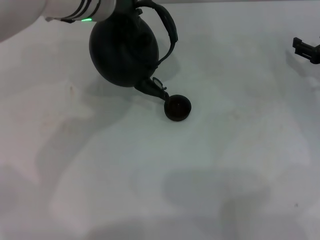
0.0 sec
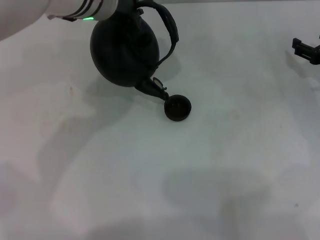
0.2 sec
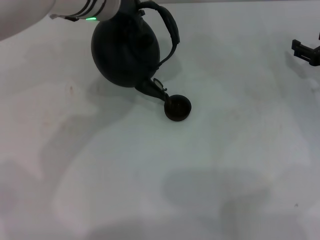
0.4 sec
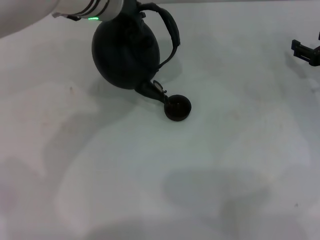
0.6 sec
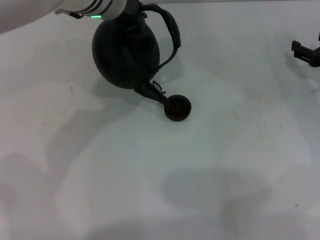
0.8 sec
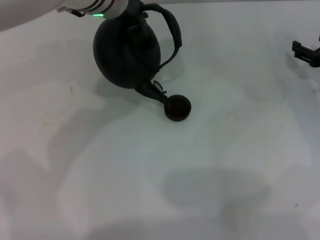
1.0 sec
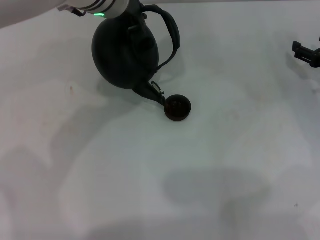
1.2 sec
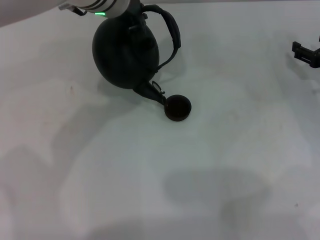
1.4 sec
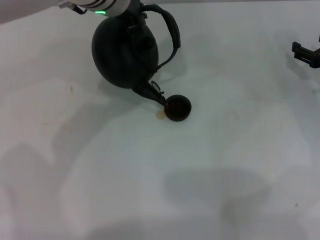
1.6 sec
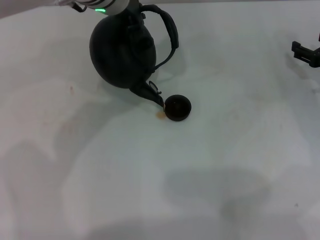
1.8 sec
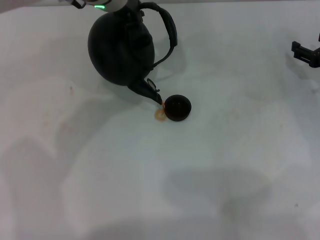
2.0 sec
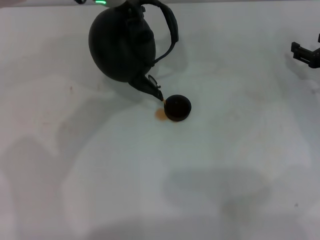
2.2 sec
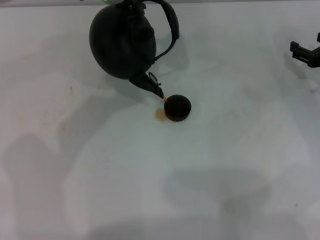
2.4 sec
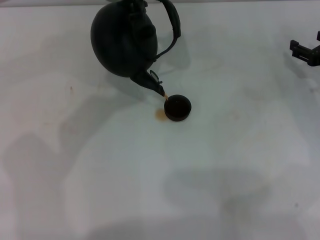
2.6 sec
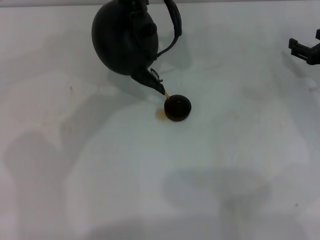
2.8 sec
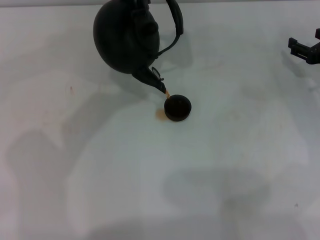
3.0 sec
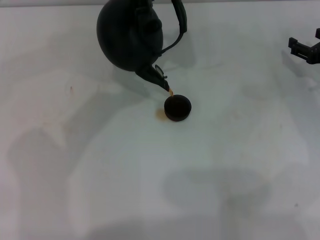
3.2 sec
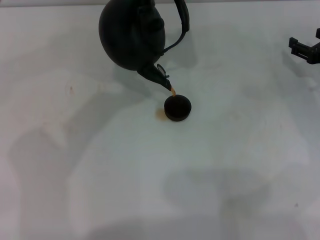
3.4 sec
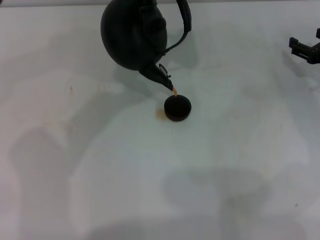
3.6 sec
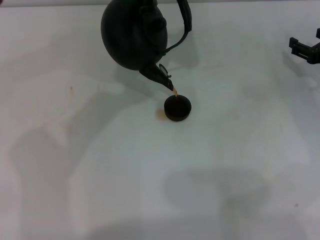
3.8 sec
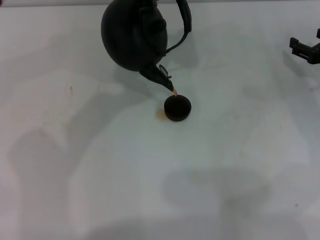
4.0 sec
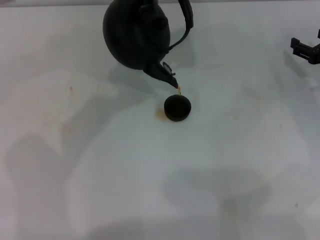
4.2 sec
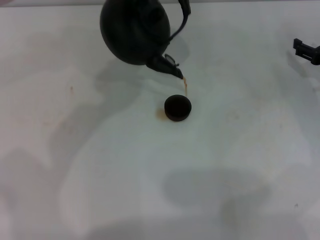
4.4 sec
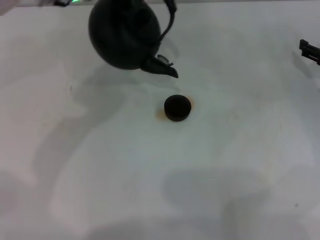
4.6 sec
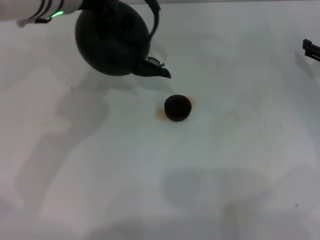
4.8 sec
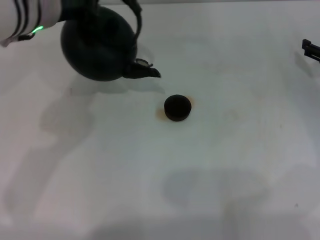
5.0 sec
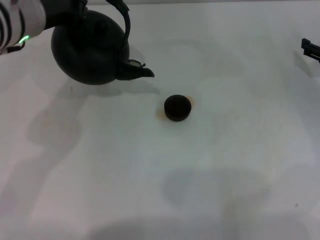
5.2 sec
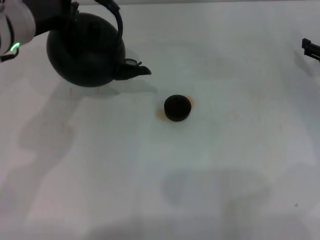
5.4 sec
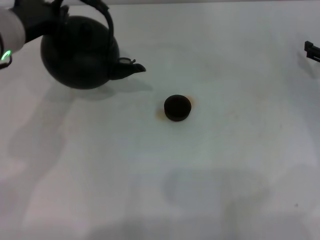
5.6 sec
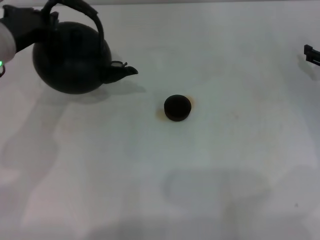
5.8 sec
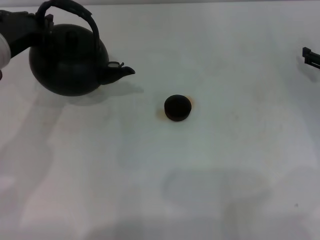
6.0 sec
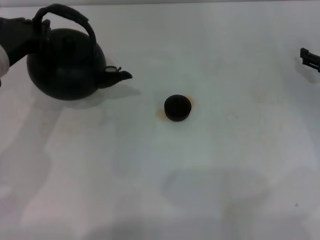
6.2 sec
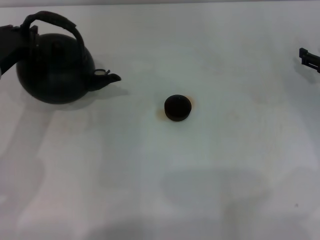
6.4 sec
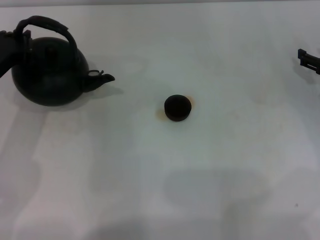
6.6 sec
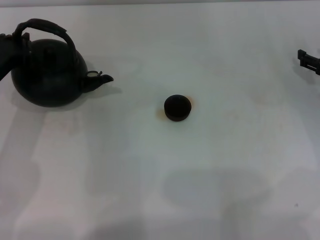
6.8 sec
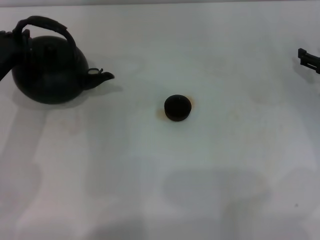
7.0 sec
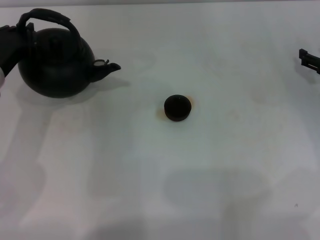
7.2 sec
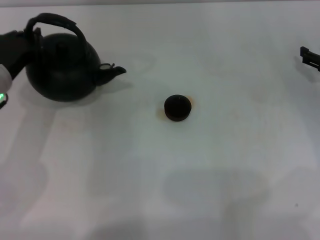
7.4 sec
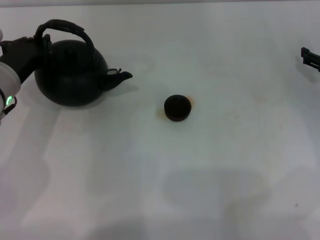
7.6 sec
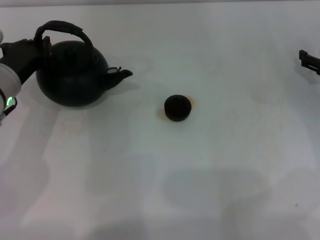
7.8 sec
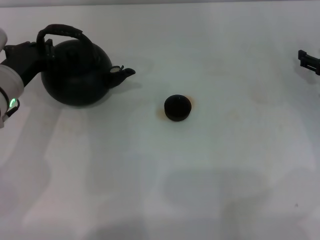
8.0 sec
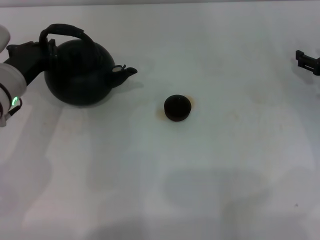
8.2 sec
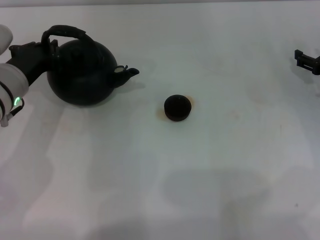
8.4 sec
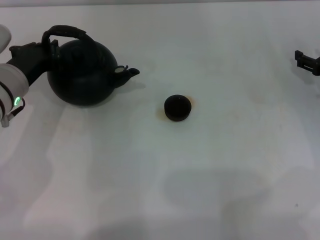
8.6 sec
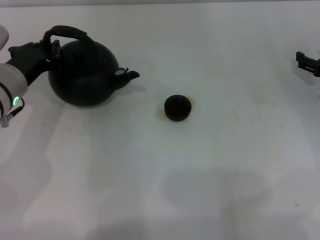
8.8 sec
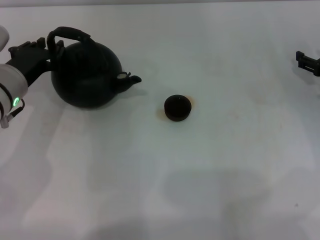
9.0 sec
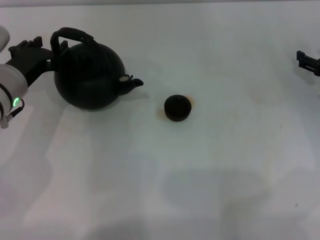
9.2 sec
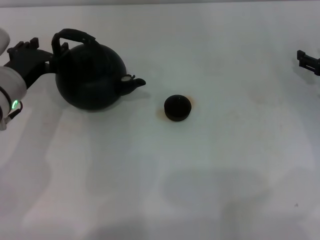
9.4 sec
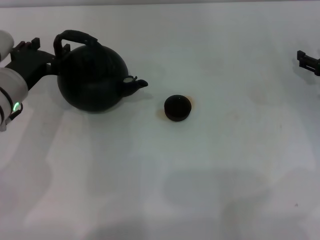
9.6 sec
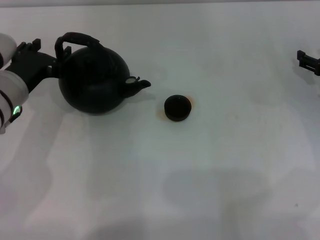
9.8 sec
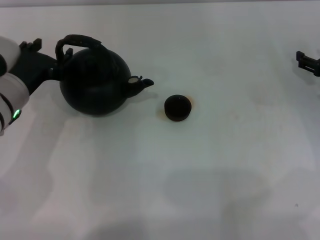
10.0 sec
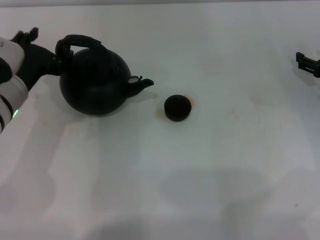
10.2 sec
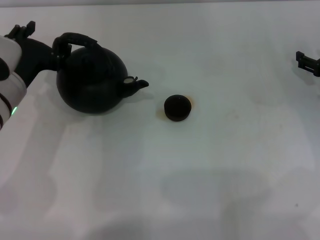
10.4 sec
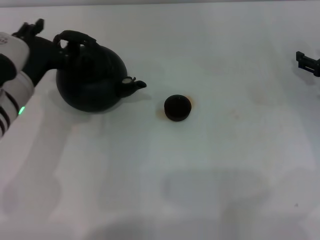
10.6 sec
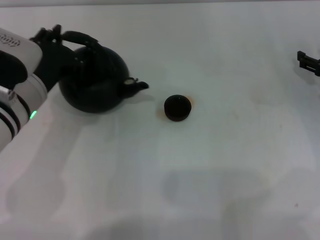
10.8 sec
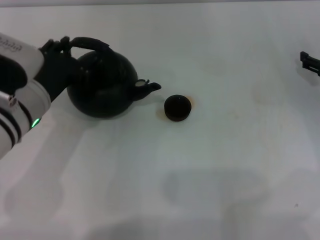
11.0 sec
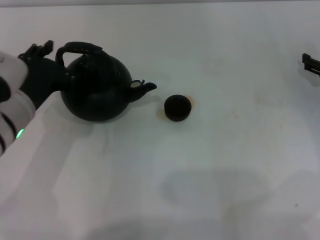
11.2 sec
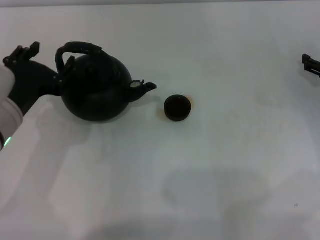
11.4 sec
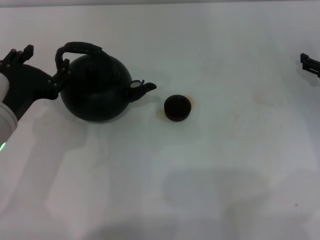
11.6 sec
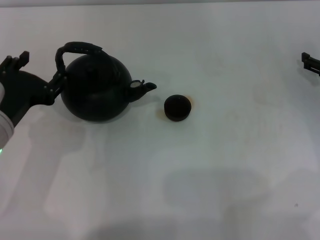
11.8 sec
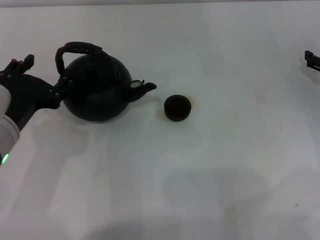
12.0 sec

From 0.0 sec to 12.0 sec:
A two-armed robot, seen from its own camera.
Task of the whole recording: Grasp the handle of the teapot with one hand and pour tea into the teacup.
Step, from 0.0 sec to 4.8 sec: Pour tea into the teacup with the left gripper.
Step, from 5.2 sec to 11.8 sec: Put down the teapot with the left gripper.
From 0.0 sec to 4.4 sec: The grippers stay close to where they were, moving slightly.
From 4.4 sec to 6.0 sec: The left gripper moves to the left, backward and downward, some 20 cm.
From 6.0 sec to 7.6 sec: The left gripper is displaced downward by some 5 cm.
From 7.6 sec to 9.0 sec: The two grippers keep their place.
From 9.0 sec to 10.4 sec: The left gripper opens its fingers.
From 10.4 sec to 12.0 sec: The left gripper shifts about 5 cm backward.

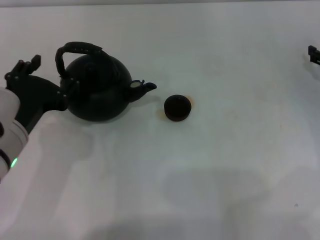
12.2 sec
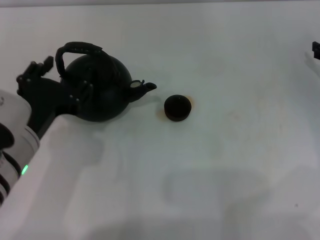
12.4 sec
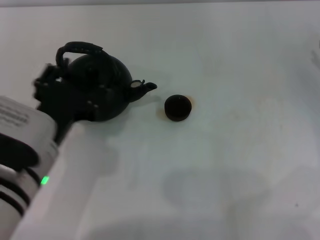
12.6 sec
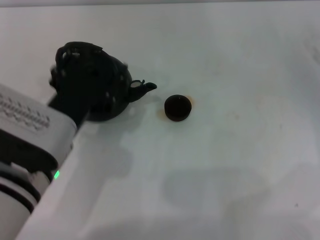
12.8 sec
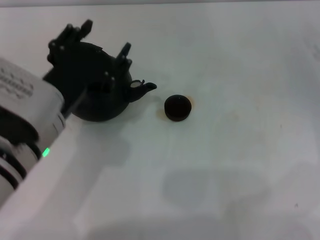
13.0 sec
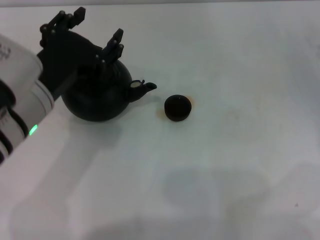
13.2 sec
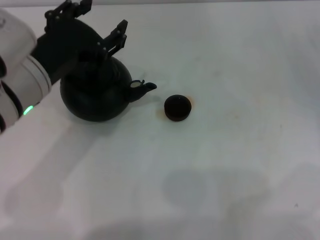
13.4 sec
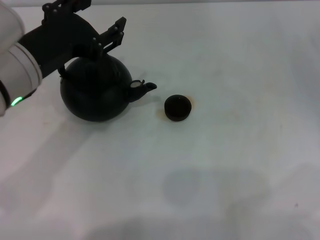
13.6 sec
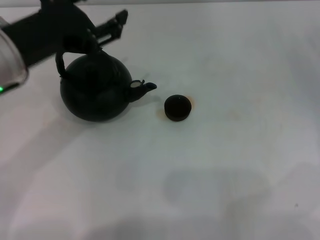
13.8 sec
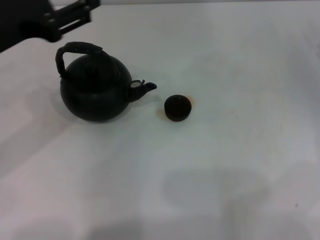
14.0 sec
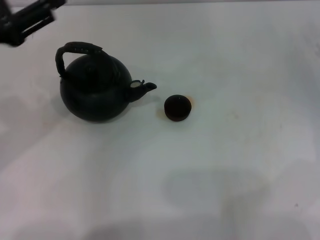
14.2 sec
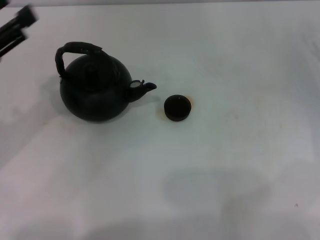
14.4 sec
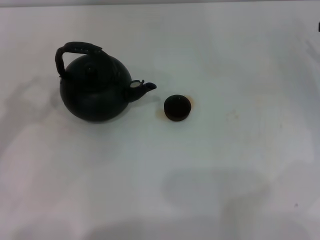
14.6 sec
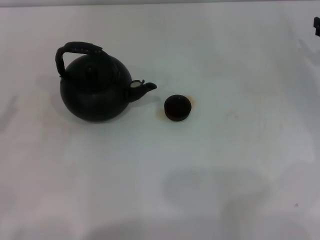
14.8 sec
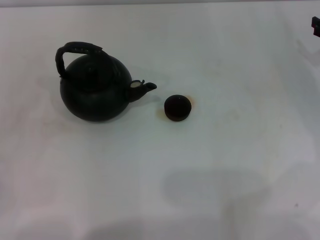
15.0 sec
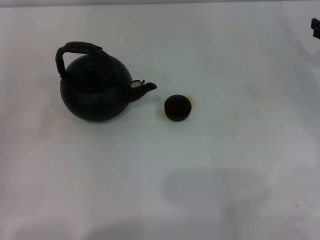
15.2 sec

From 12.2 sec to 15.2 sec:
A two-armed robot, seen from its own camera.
Task of the whole recording: Grasp the handle of the teapot with one hand and pour tea into the teacup.
From 12.2 sec to 13.8 sec: The left gripper moves upward and forward, roughly 10 cm.
From 13.8 sec to 15.2 sec: The left gripper is displaced to the left, downward and backward by roughly 25 cm.

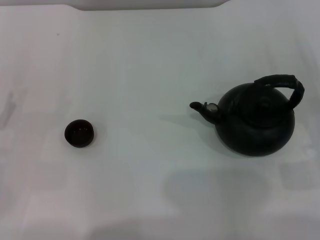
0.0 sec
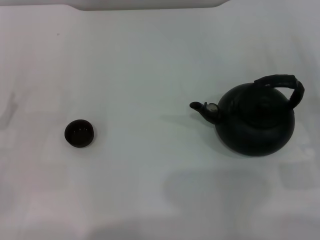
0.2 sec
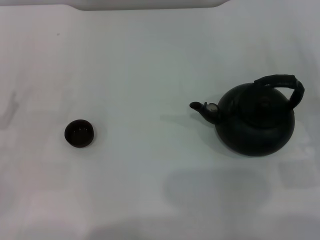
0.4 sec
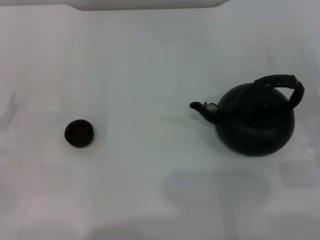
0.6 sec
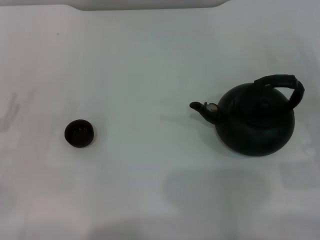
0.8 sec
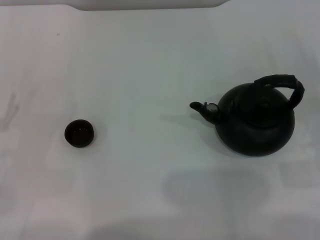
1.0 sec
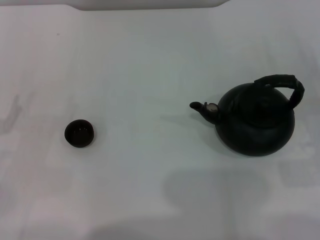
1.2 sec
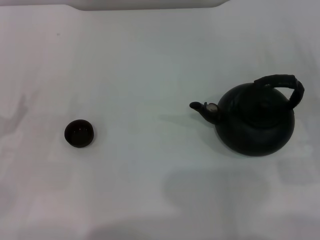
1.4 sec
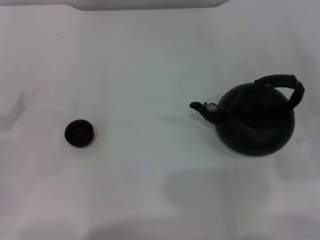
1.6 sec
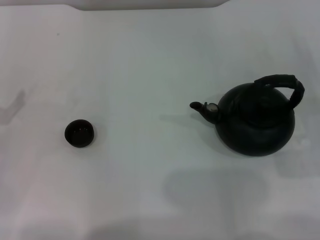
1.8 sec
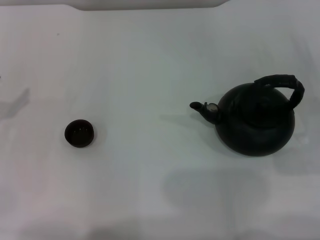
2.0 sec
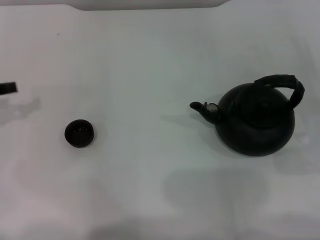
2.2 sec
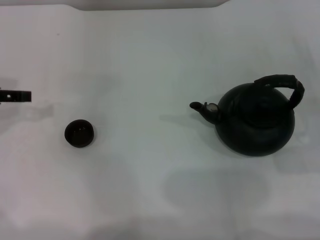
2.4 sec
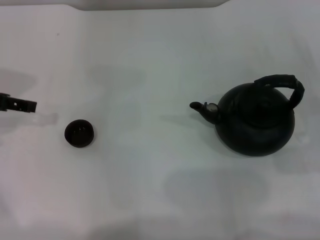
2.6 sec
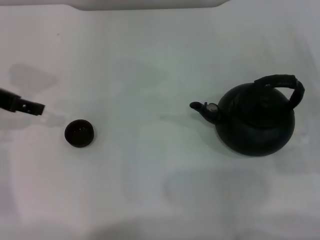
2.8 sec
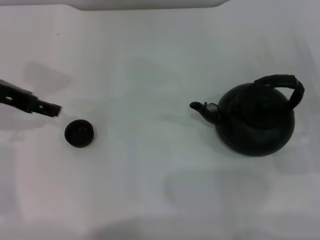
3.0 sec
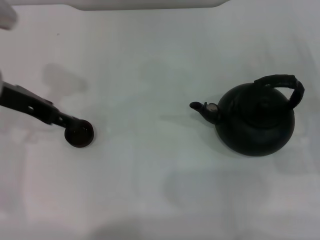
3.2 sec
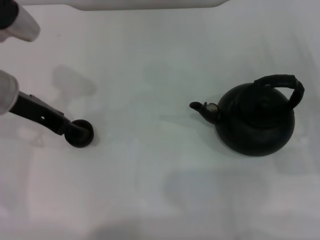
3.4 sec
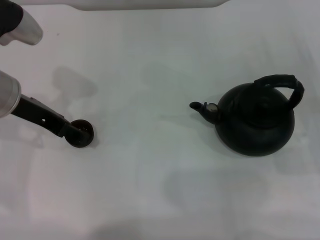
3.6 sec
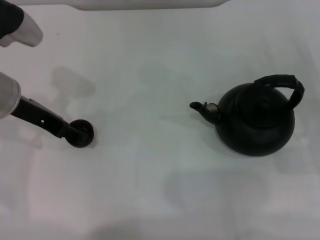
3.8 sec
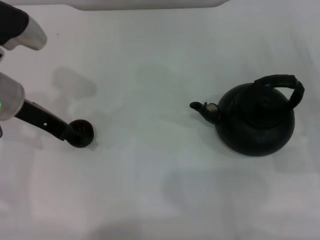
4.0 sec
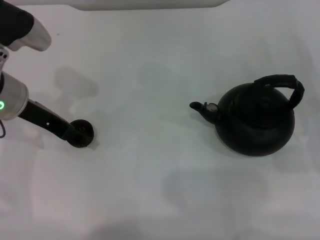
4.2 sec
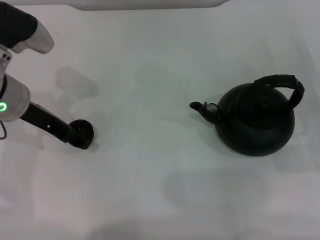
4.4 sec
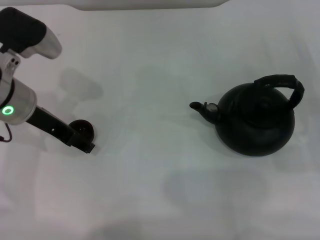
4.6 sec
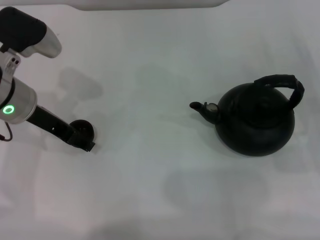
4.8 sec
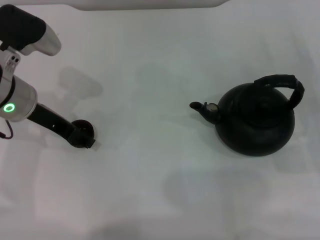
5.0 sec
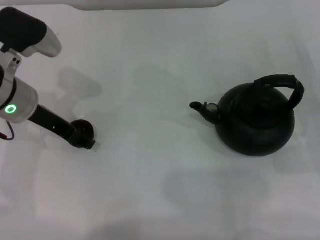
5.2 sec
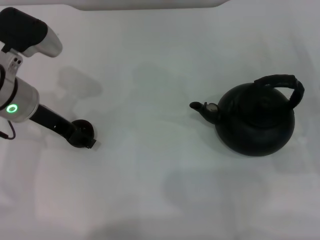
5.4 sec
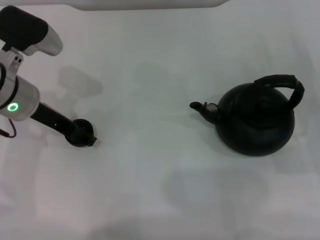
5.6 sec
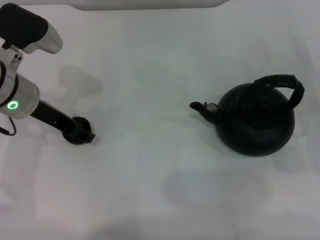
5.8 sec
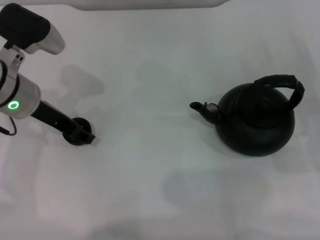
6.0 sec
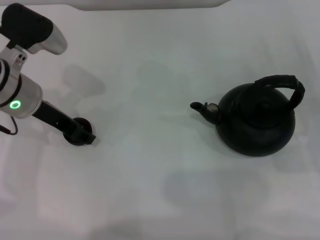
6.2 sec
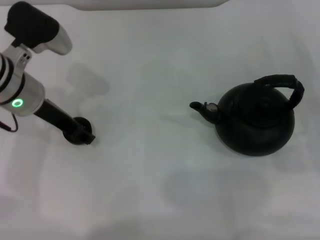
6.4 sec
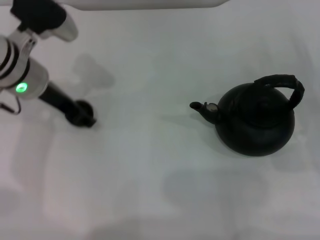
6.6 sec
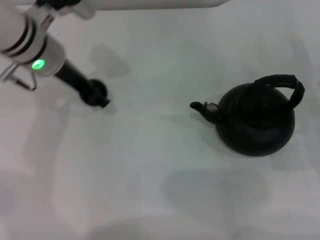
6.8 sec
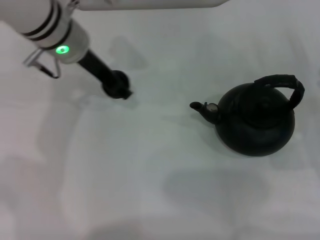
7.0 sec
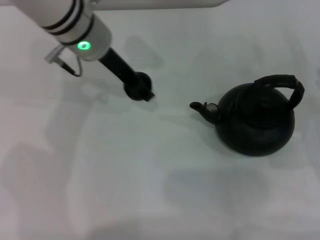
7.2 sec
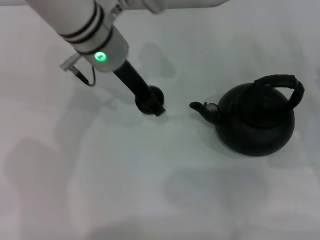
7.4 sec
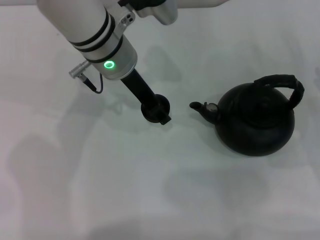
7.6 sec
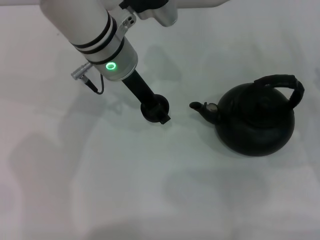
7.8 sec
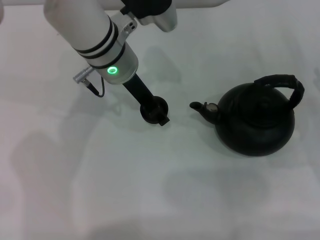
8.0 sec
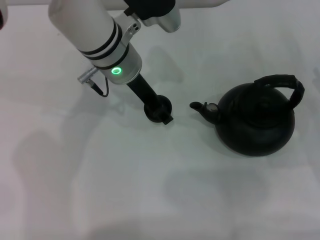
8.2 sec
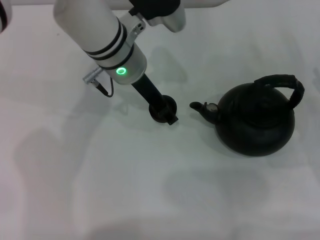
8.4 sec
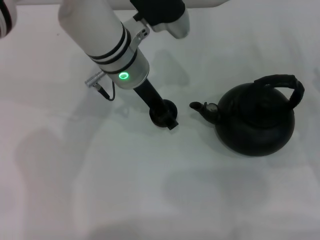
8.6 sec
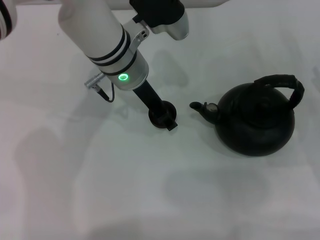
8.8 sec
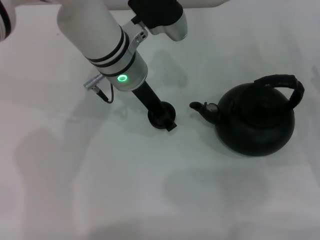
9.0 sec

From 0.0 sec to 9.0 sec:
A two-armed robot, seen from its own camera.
Task of the whole recording: Grasp the handle of the teapot with one hand and pour tea into the teacup.
Step, from 0.0 sec to 6.4 sec: Pick up the teacup with the left gripper.
From 1.6 sec to 3.0 sec: The left gripper travels upward, forward and to the right by roughly 20 cm.
From 3.0 sec to 4.4 sec: The left gripper shifts by some 5 cm.
From 4.4 sec to 6.0 sec: The left gripper closes up.
From 6.0 sec to 7.6 sec: The left gripper moves to the right, about 15 cm.
From 7.6 sec to 9.0 sec: There are only small adjustments of the grippers.
